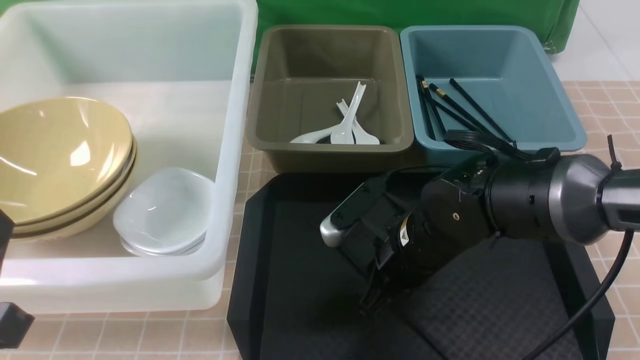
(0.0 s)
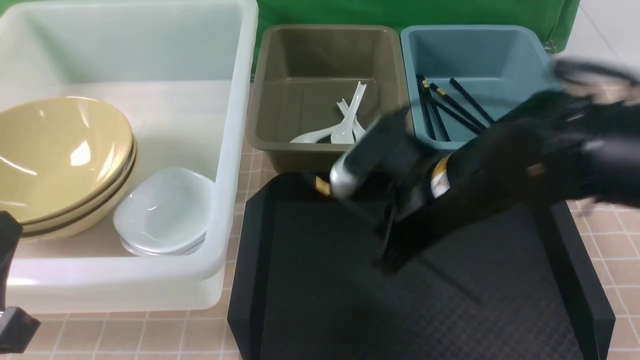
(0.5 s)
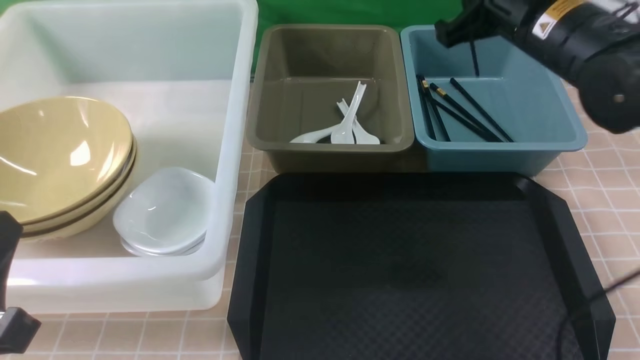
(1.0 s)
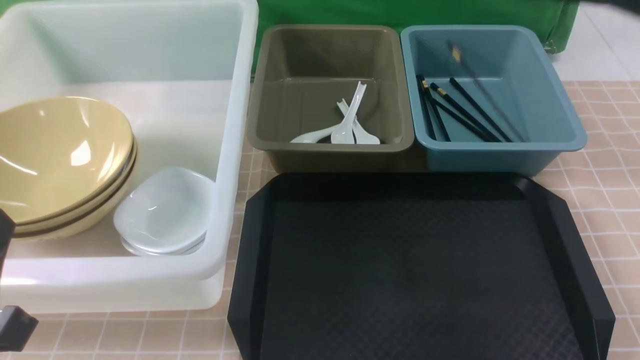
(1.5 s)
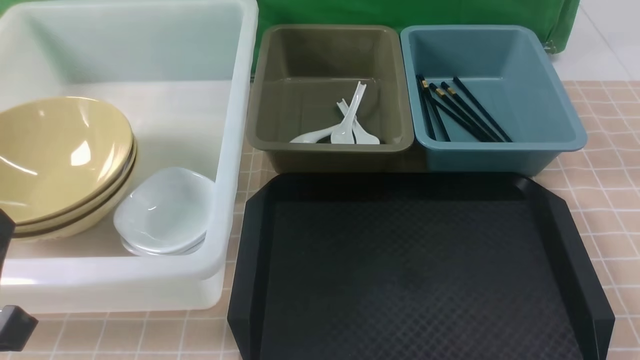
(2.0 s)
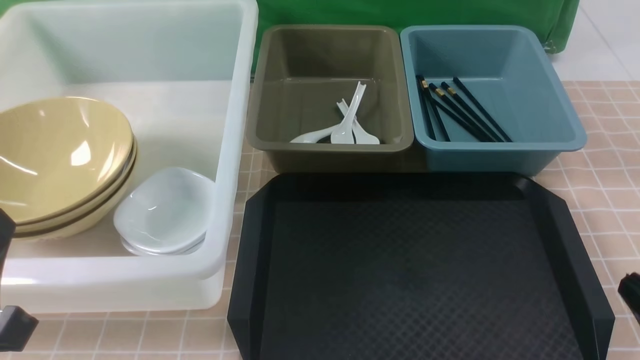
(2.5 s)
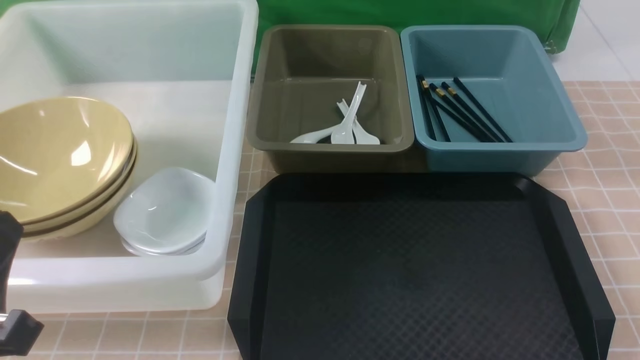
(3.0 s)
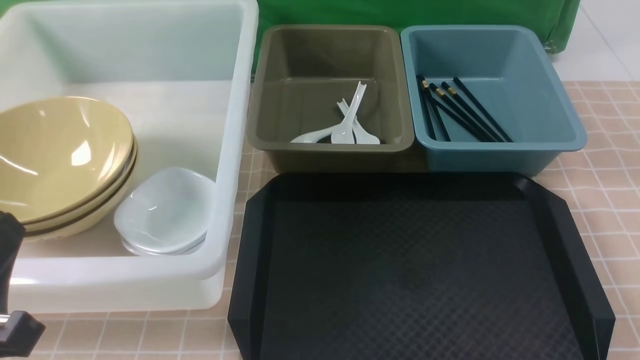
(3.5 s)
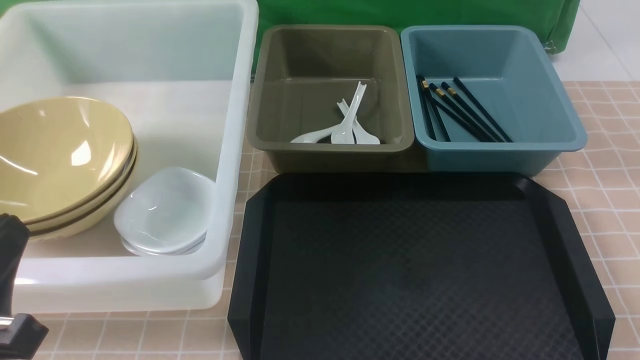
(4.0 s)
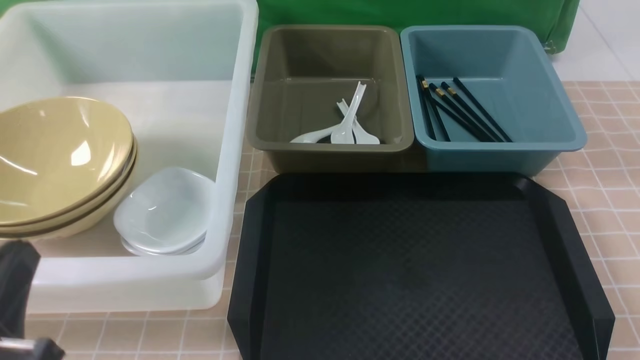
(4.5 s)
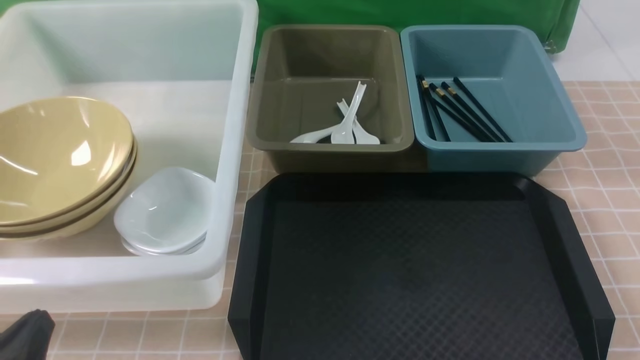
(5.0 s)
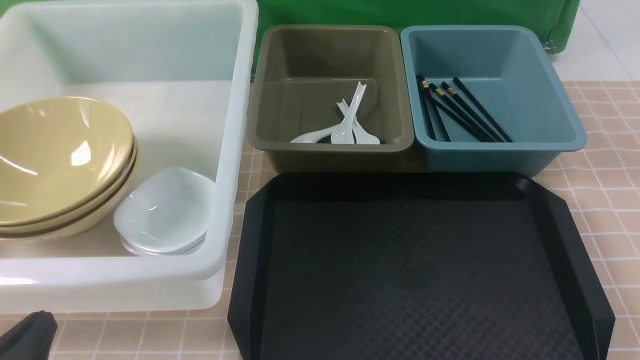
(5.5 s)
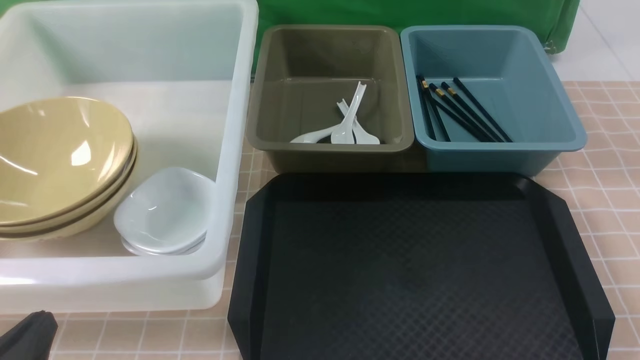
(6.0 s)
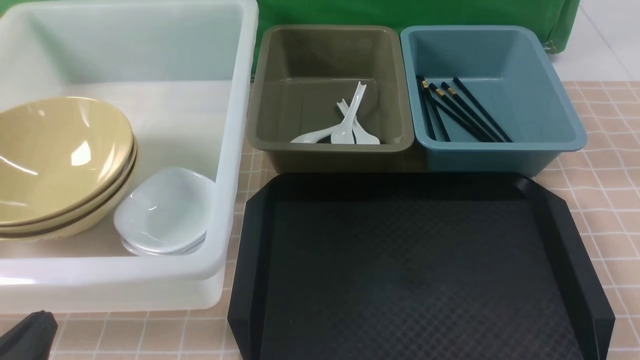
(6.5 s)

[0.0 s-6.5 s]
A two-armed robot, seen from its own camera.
Task of the whole recording: on brown table put chopsticks spoon bowls plates into blue grey white boxes.
Step, 0.5 to 1.0 s: use the right arm to put a chopstick into the small storage box on the right.
0.0 to 2.0 s: The right gripper shifts roughly 30 cm to the right, backward and upward, and closes.
4.5 to 6.5 s: The left gripper shifts roughly 5 cm downward.
